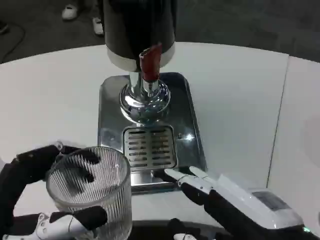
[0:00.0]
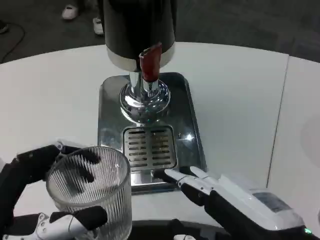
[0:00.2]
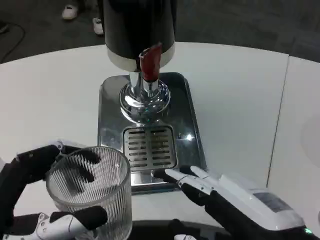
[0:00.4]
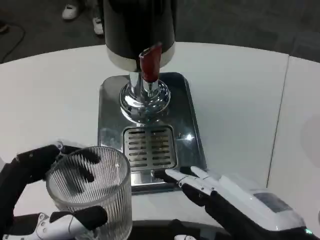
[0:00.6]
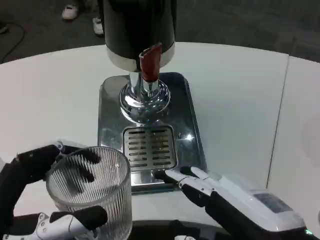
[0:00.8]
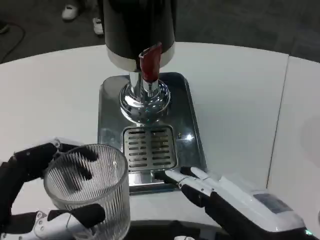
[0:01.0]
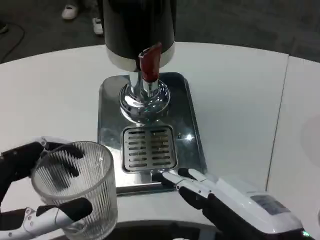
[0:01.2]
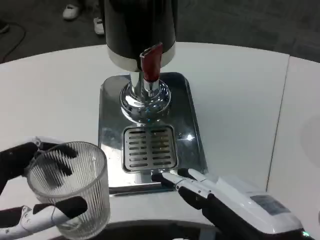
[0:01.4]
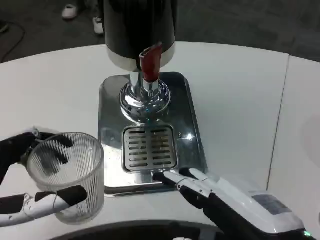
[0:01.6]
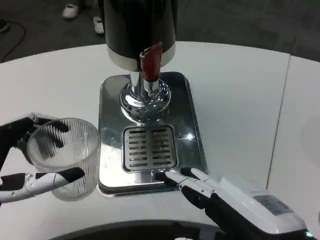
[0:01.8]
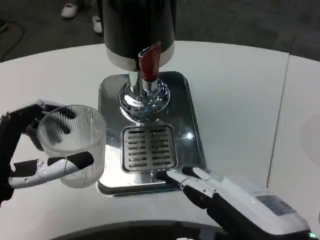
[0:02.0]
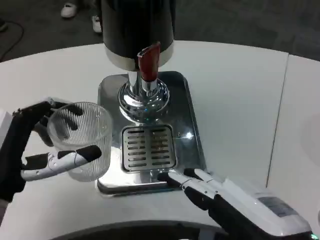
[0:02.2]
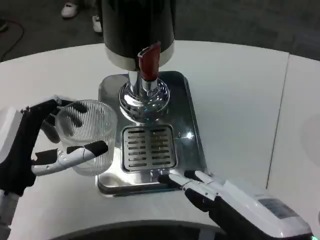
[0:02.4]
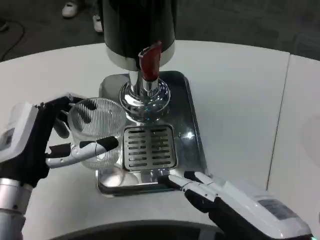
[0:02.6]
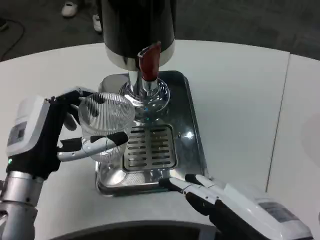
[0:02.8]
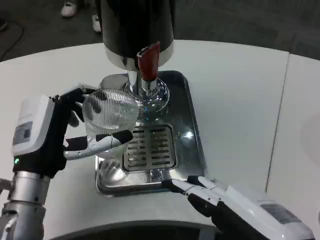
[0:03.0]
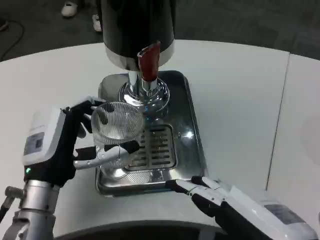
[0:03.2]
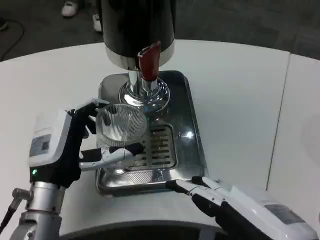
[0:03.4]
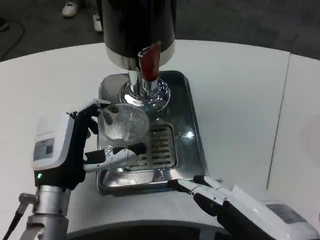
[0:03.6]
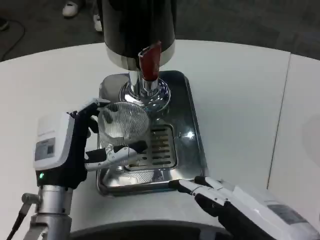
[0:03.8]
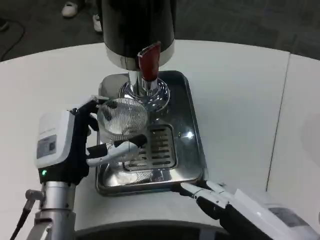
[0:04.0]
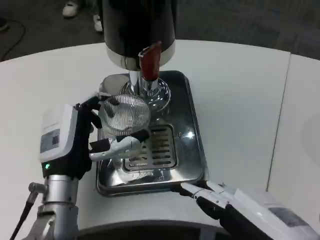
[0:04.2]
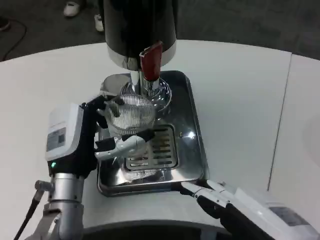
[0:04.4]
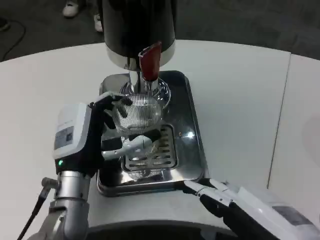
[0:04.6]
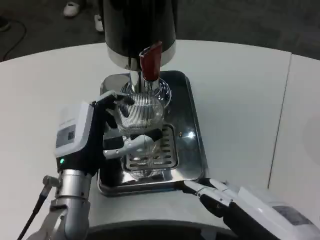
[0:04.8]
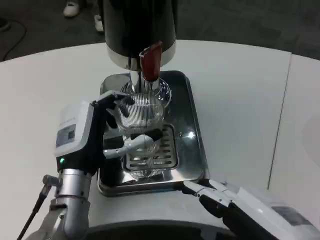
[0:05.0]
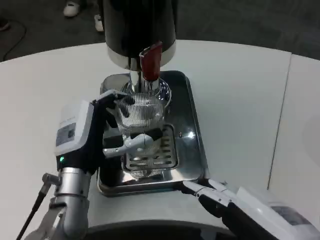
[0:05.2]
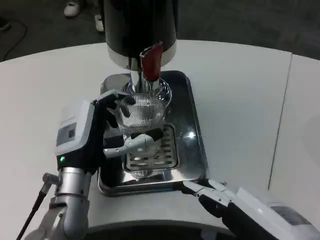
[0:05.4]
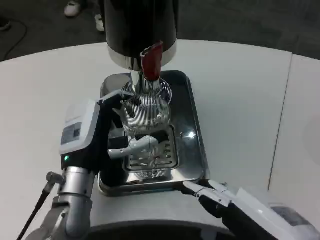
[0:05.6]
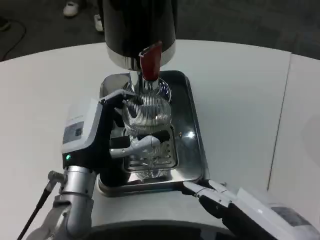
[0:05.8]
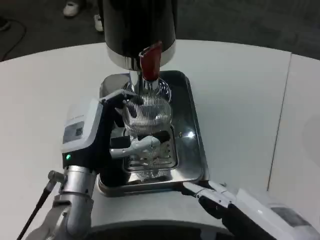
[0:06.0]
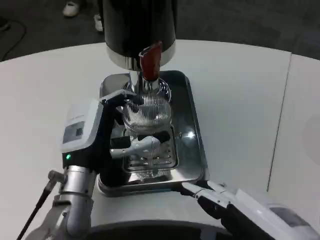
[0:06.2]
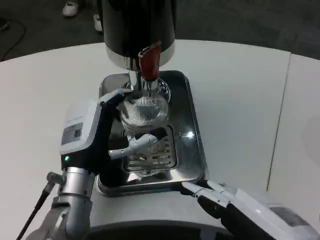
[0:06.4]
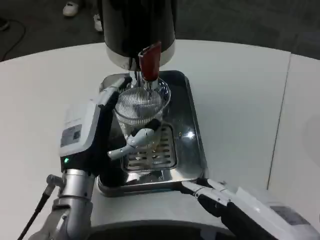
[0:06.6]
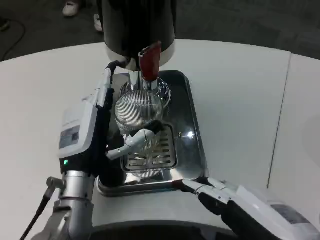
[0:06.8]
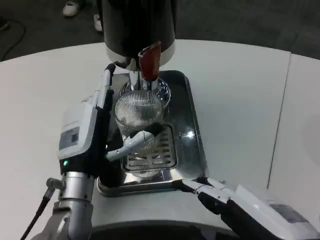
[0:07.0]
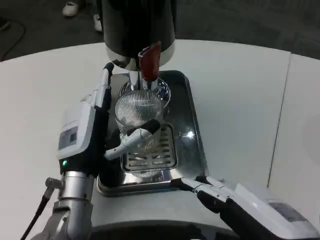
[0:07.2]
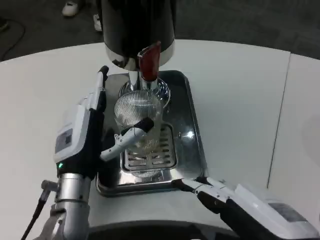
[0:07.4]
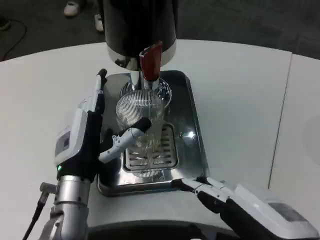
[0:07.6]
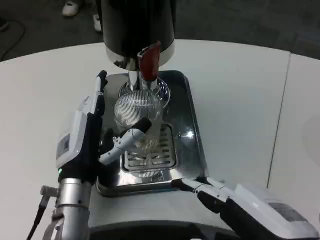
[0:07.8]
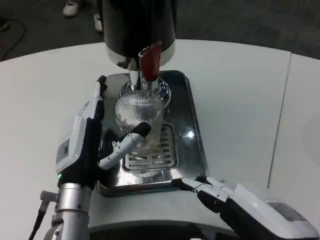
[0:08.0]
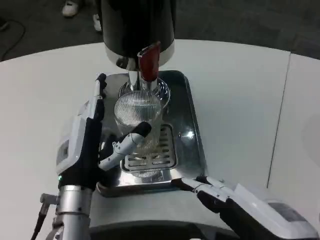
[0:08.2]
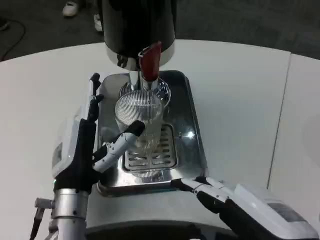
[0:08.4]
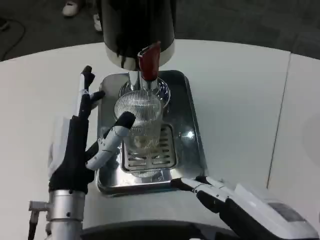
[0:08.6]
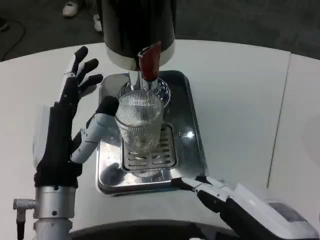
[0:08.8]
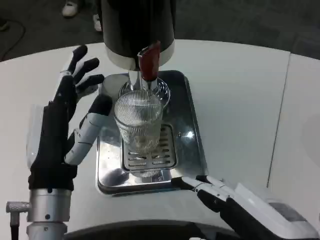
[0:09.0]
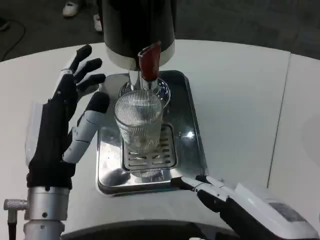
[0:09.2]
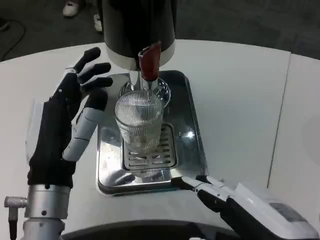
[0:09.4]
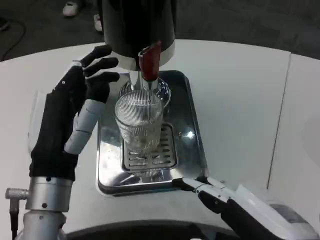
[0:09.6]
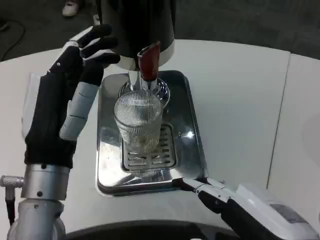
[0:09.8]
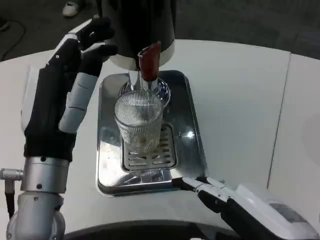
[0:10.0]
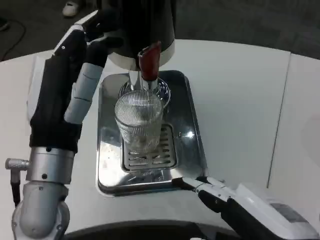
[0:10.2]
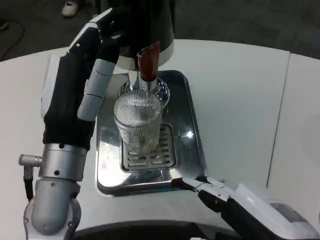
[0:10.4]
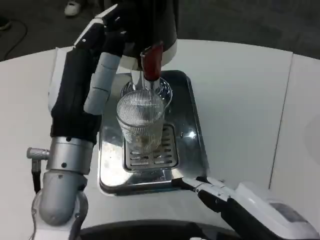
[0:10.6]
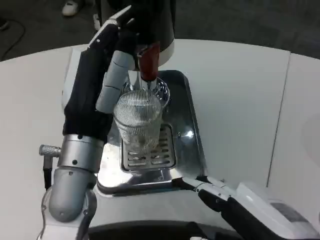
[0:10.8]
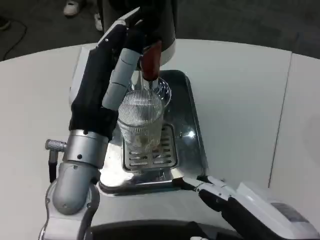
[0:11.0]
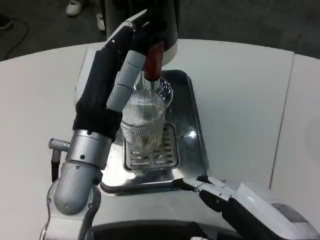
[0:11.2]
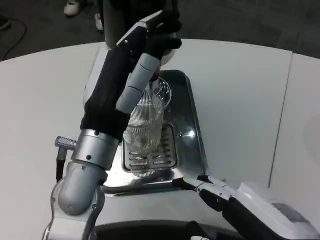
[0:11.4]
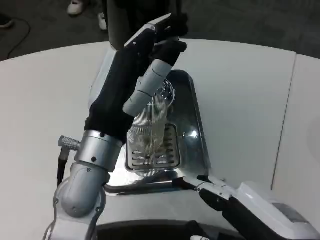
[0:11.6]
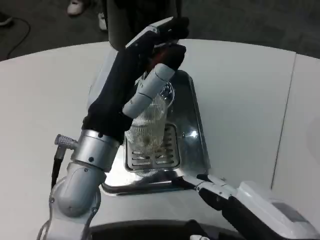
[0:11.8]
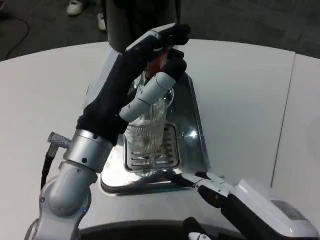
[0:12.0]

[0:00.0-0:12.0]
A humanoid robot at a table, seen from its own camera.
Task of the whole recording: Grasp the cup under the faucet to collect the drink, then remove the cup.
0:00.0 to 0:01.6: The hands make only small movements.
0:01.6 to 0:03.0: The left hand travels forward by approximately 15 cm.
0:03.0 to 0:04.4: The left hand shifts by about 5 cm.
0:04.4 to 0:07.6: There are only small adjustments of the hands.
0:07.6 to 0:09.0: The left hand goes some 5 cm backward.
0:09.0 to 0:10.4: The left hand heads upward, covering about 5 cm.

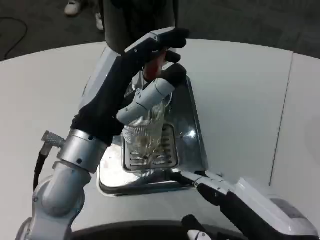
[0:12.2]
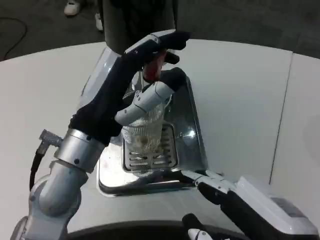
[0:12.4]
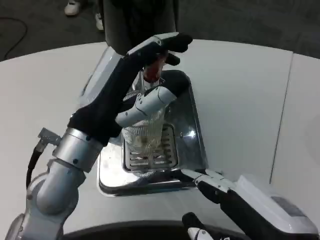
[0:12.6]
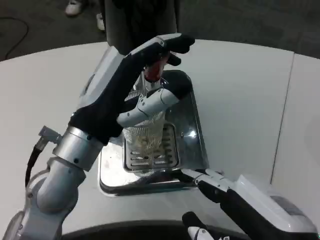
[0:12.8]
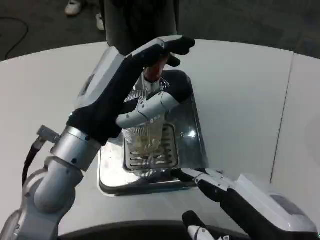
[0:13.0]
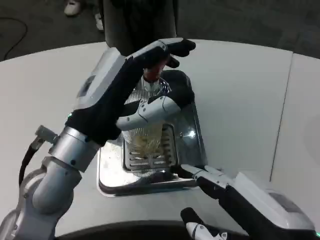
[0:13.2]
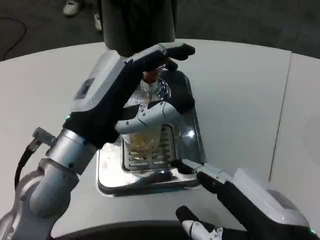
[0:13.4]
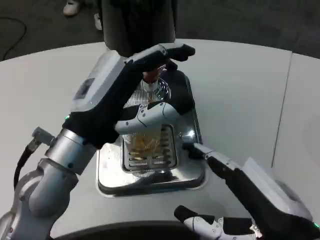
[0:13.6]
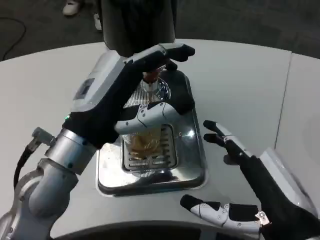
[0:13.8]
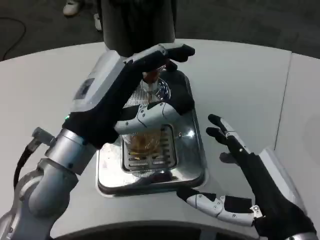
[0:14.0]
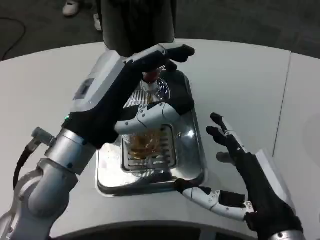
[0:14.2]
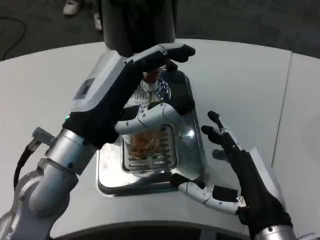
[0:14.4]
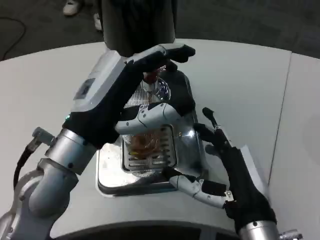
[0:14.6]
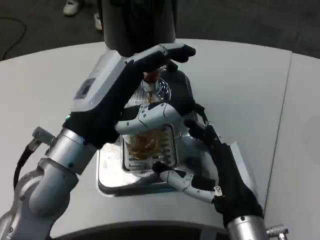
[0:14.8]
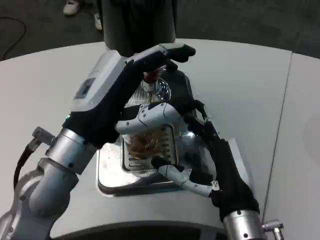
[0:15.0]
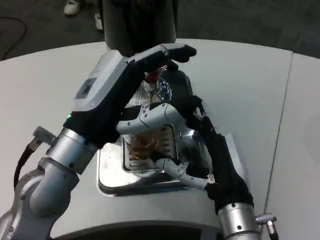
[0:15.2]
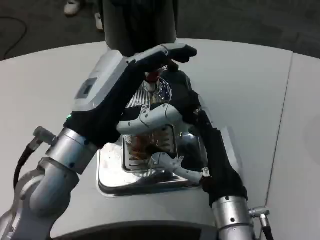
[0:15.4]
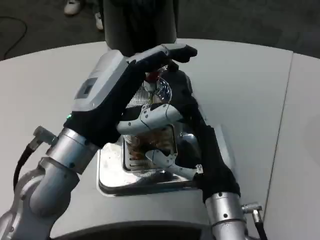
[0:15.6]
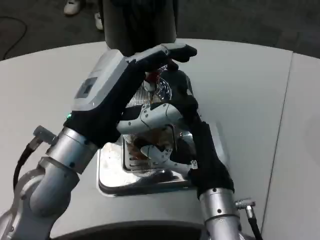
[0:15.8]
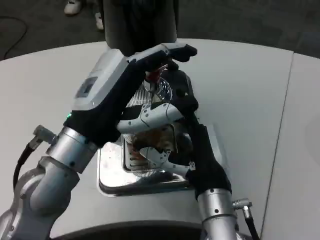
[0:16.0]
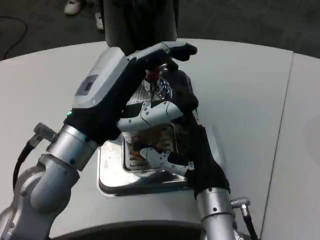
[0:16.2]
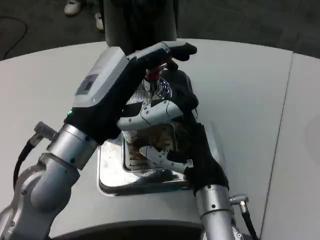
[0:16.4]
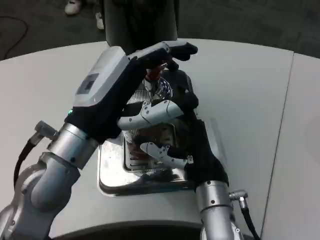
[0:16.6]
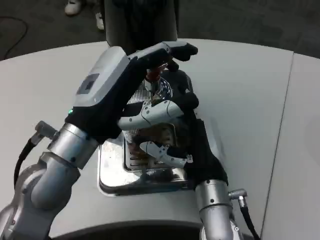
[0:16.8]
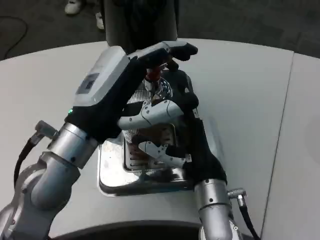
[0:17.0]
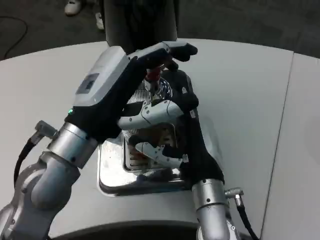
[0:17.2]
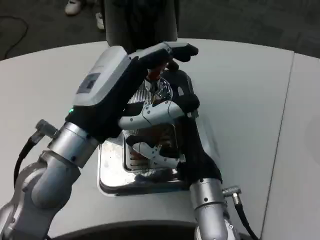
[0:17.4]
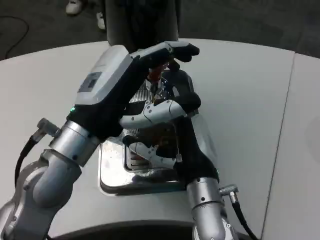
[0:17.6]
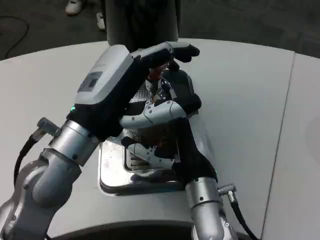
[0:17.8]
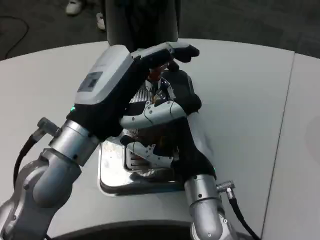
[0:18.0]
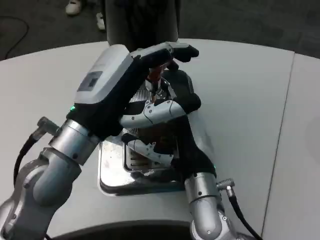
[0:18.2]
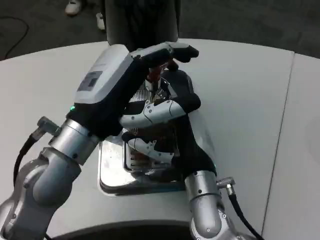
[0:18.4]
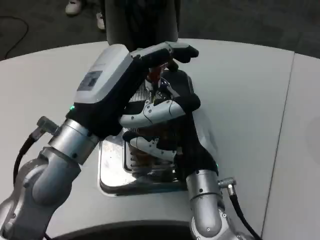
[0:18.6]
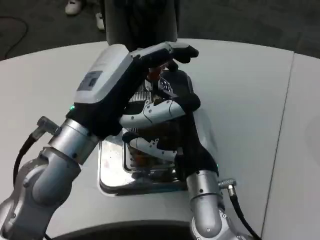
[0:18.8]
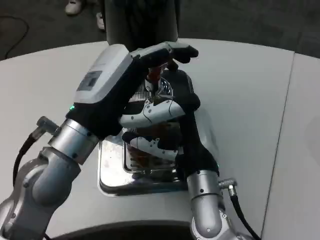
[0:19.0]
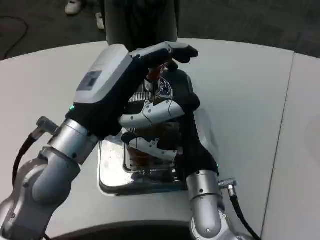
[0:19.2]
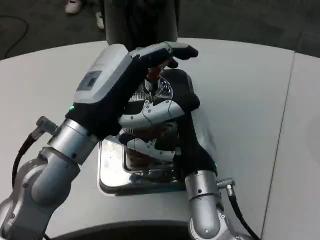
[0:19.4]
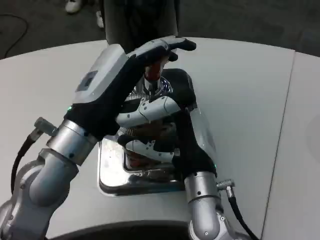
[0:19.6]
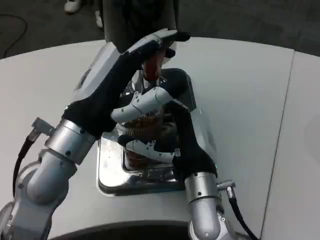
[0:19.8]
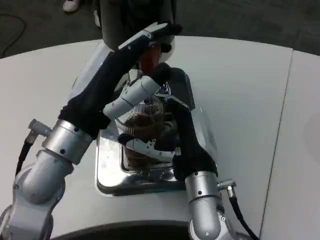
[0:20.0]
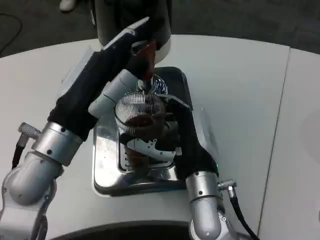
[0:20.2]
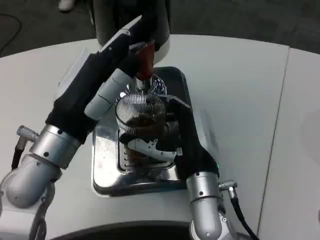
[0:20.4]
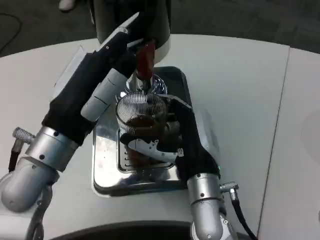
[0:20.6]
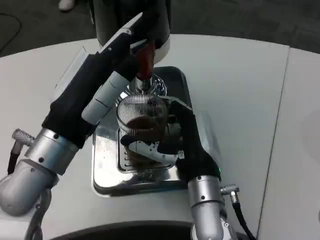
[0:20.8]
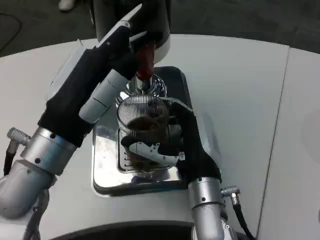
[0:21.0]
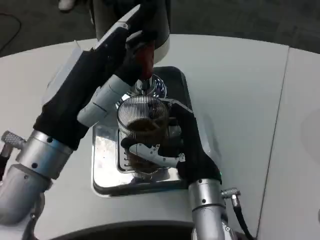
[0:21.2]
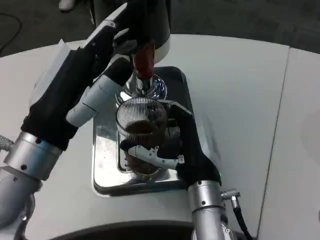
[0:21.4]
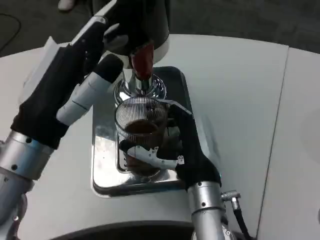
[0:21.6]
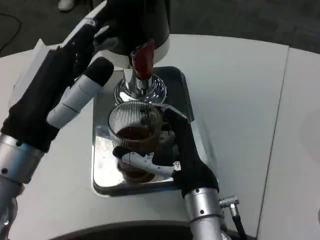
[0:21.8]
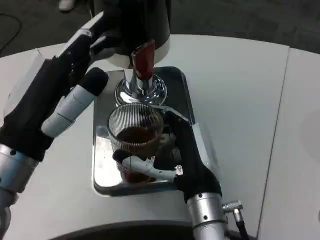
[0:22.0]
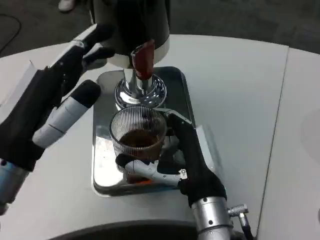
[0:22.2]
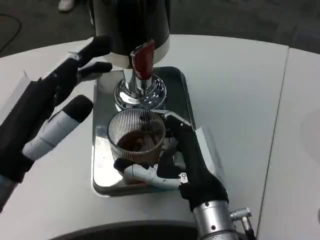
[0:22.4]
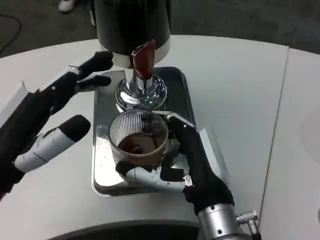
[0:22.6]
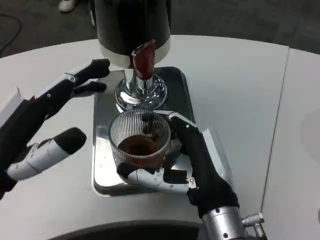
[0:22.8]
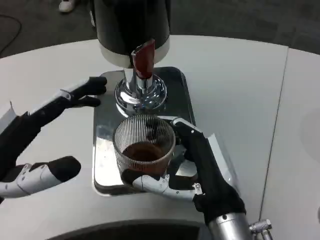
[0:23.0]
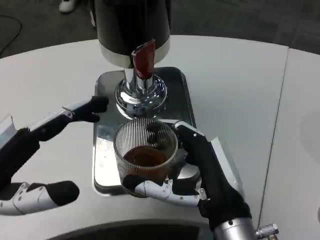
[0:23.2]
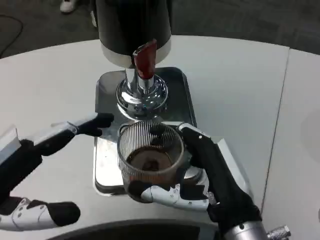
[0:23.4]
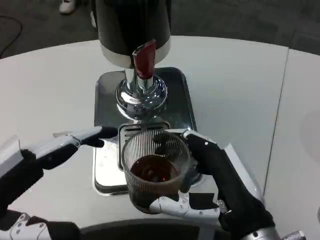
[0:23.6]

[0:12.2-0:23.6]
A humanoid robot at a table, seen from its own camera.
Task of the whole recording: Grasp the cup under the faucet to collect the drink, then remove the cup.
0:13.6 to 0:15.0: The right hand moves forward, to the left and downward, roughly 10 cm.
0:15.0 to 0:16.4: The right hand moves roughly 5 cm.
0:16.4 to 0:17.8: There are only small adjustments of the hands.
0:17.8 to 0:19.4: Both hands stay about where they are.
0:20.8 to 0:22.2: The left hand ends up roughly 5 cm from where it was.
0:22.2 to 0:23.6: The left hand moves to the left and backward, approximately 10 cm. Meanwhile the right hand heads backward and to the right, covering roughly 10 cm.
